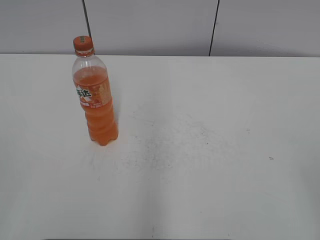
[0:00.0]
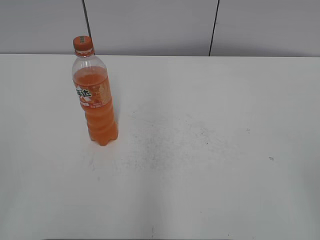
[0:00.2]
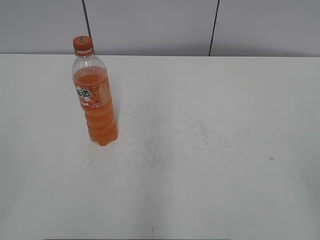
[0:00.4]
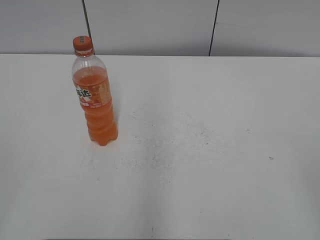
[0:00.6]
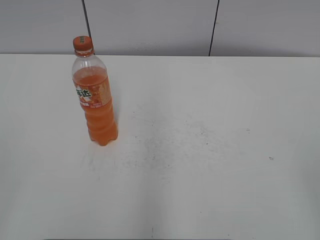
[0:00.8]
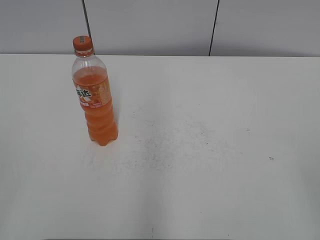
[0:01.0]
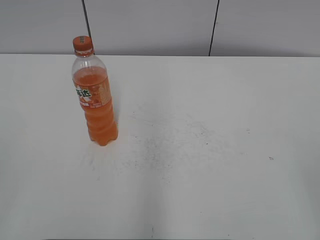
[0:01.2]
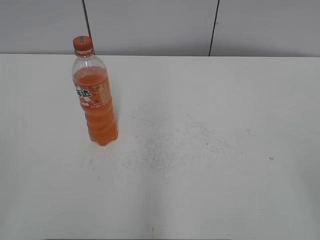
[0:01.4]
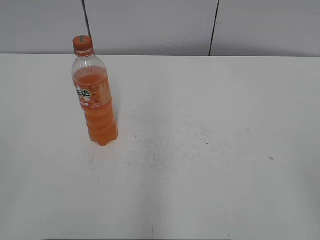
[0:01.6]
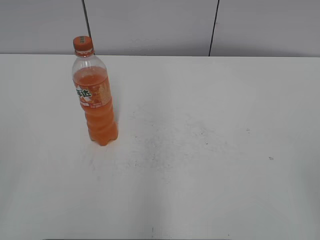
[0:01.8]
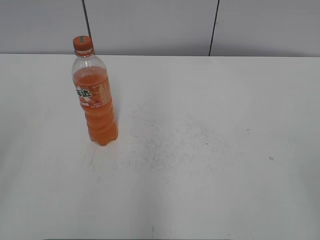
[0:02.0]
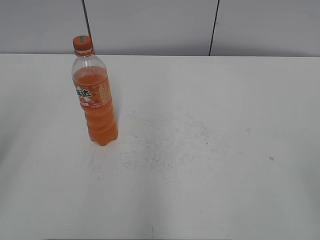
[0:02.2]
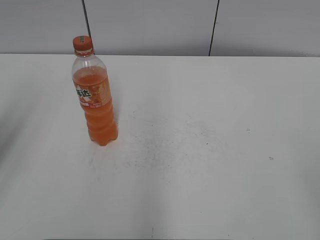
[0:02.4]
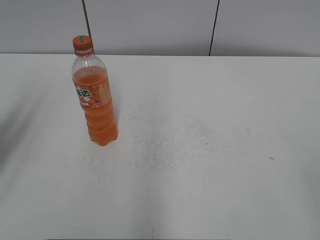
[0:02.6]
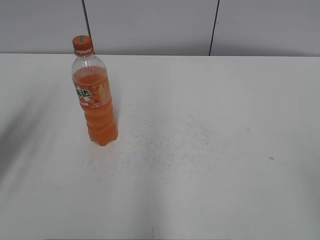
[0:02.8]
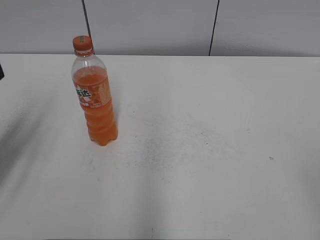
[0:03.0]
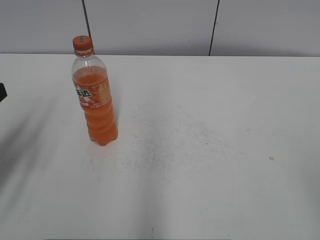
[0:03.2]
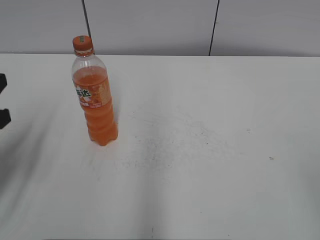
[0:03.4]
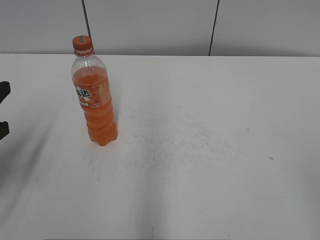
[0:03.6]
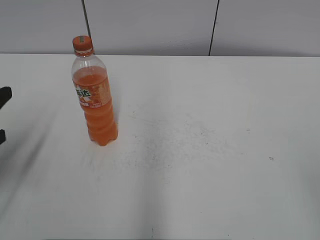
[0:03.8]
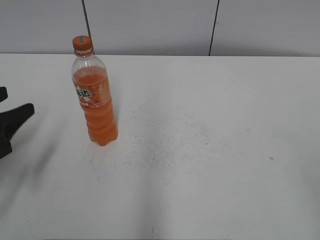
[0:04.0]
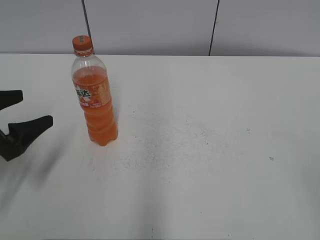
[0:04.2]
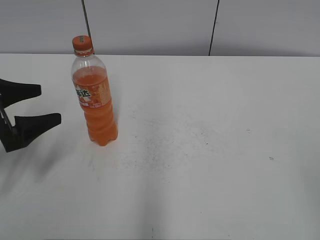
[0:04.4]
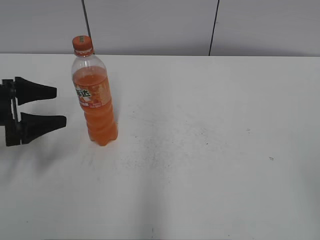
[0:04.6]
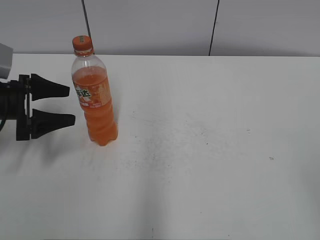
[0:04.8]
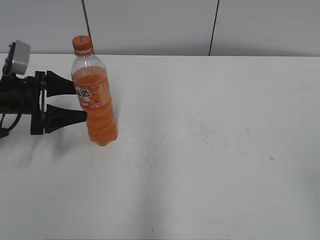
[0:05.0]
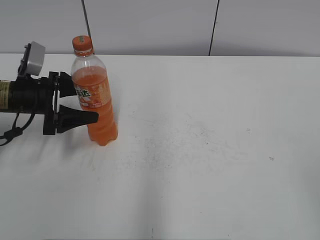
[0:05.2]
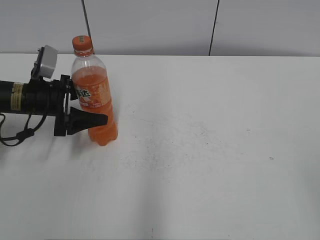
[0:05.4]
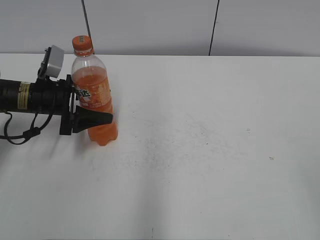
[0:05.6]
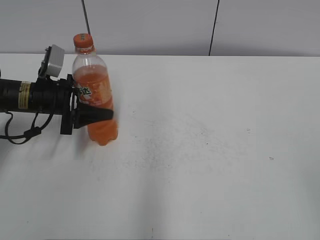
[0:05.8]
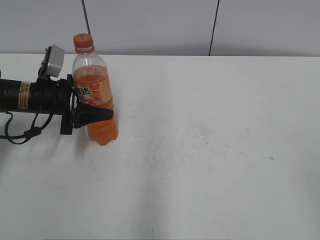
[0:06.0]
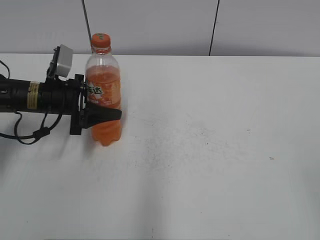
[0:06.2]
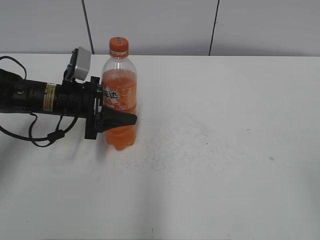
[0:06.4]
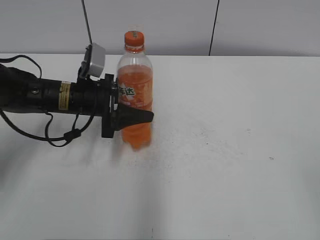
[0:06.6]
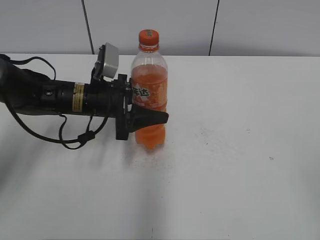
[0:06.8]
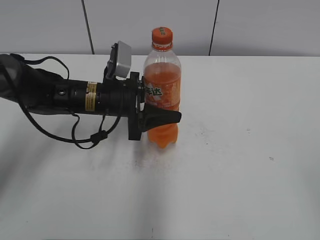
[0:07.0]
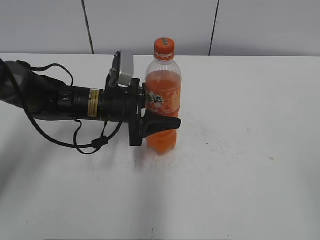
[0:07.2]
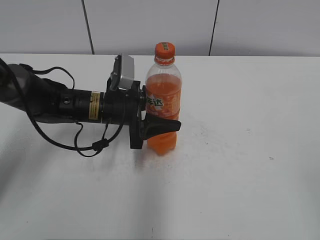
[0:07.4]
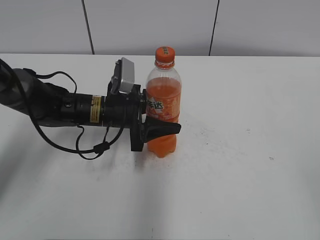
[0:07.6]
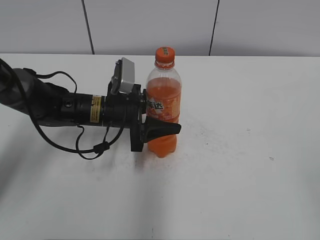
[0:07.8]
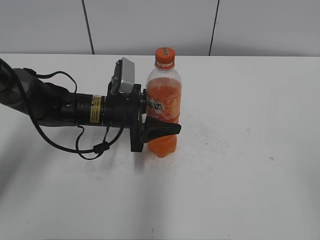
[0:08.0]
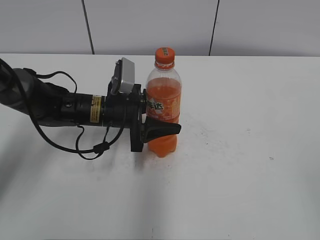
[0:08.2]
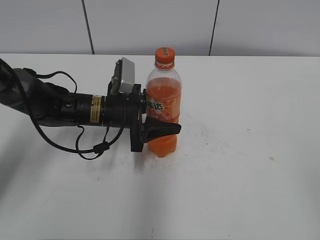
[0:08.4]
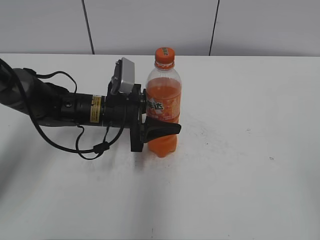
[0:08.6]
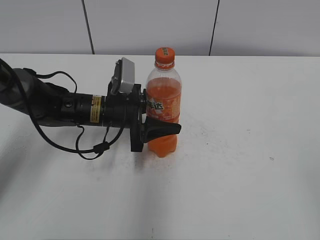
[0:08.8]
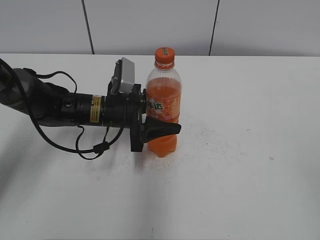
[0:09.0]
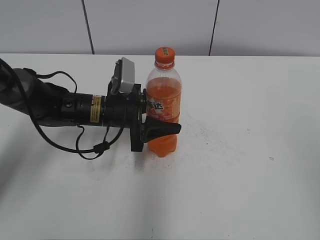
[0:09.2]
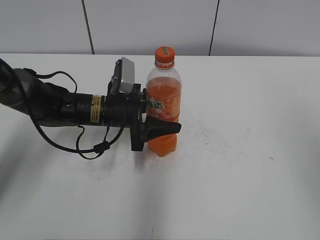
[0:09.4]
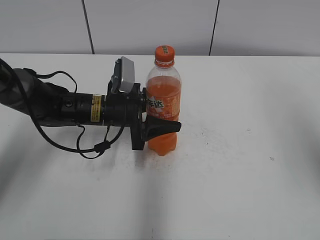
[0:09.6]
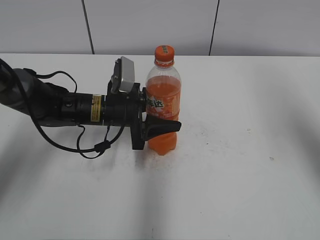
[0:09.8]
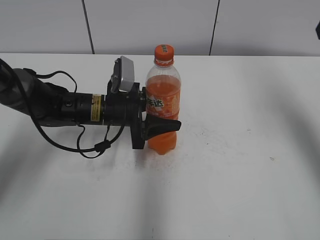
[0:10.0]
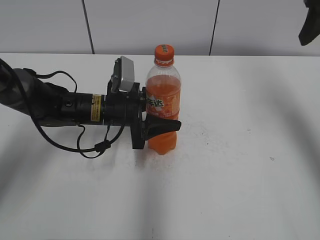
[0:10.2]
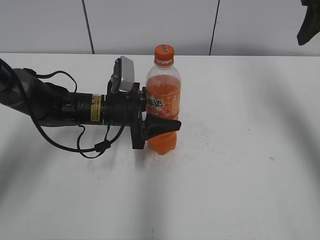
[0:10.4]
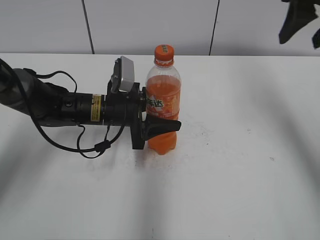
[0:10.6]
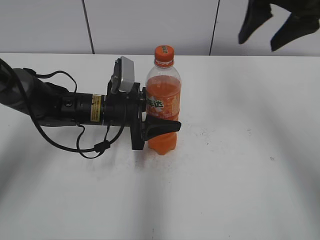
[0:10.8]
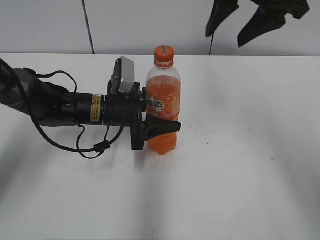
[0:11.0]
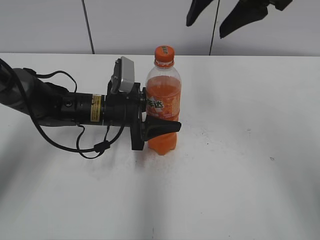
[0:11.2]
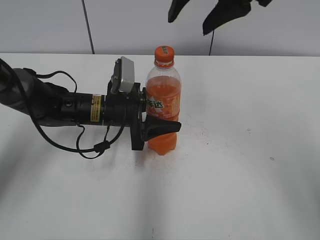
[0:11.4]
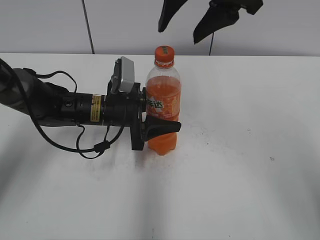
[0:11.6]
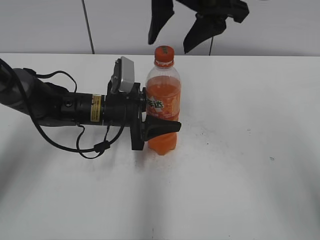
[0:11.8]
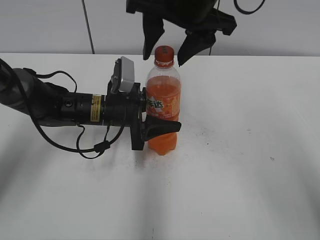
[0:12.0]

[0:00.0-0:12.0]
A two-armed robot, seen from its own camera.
Step, 0:00.0 to 0:05.8: Grab the Mirinda with the left hand.
Step, 0:06.0 to 0:08.2: Move the Mirinda from left to right.
0:01.6 to 0:03.0: The left gripper shifts roughly 25 cm forward.
0:03.0 to 0:04.4: The left gripper goes approximately 10 cm downward, and opens up.
0:04.4 to 0:06.0: The left gripper goes approximately 15 cm forward and to the right, and closes up.
0:06.0 to 0:07.6: The left gripper heads to the right, covering roughly 15 cm.
0:07.6 to 0:09.0: Both grippers stay about where they are.
0:09.0 to 0:10.4: The right gripper shifts about 35 cm forward.
0:10.4 to 0:12.0: The right gripper goes about 20 cm to the left.

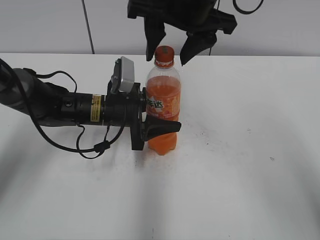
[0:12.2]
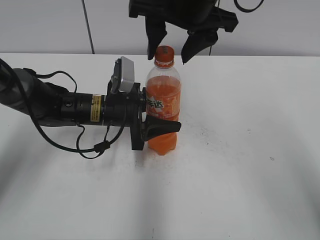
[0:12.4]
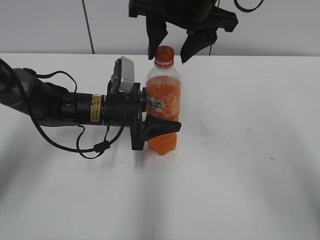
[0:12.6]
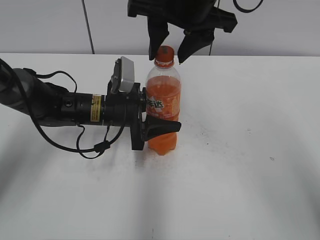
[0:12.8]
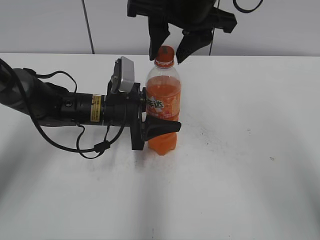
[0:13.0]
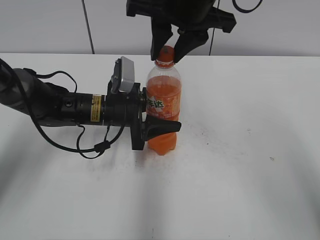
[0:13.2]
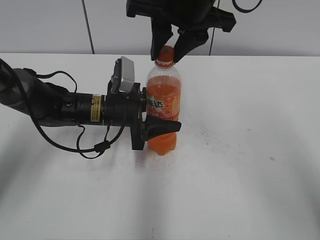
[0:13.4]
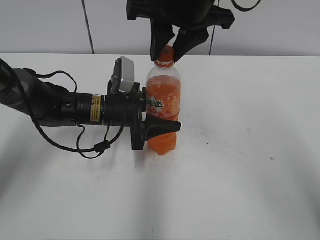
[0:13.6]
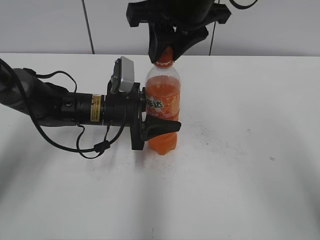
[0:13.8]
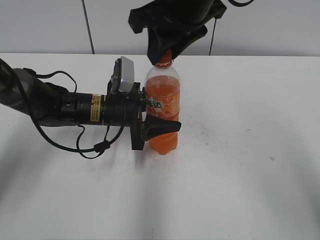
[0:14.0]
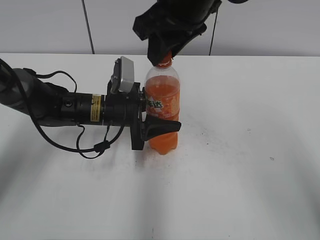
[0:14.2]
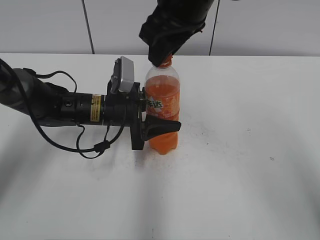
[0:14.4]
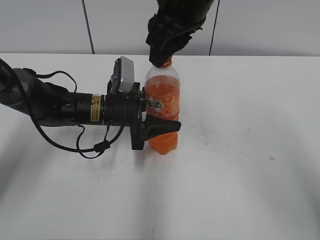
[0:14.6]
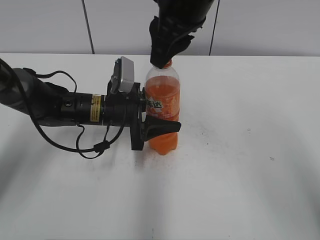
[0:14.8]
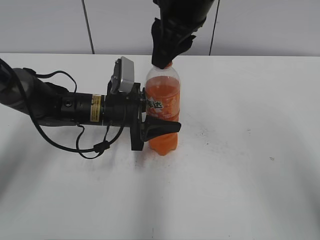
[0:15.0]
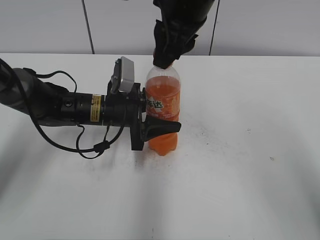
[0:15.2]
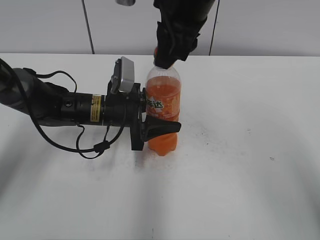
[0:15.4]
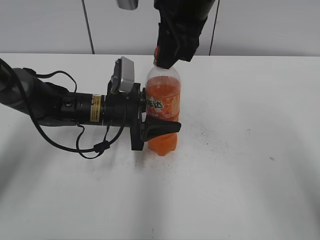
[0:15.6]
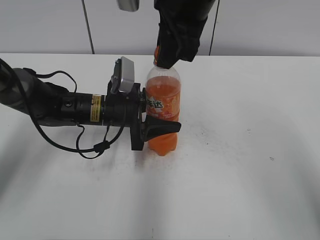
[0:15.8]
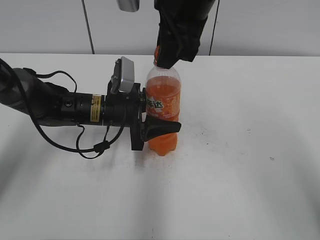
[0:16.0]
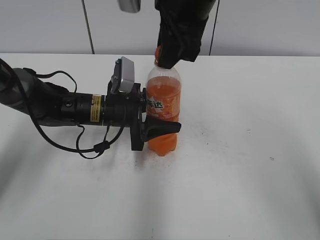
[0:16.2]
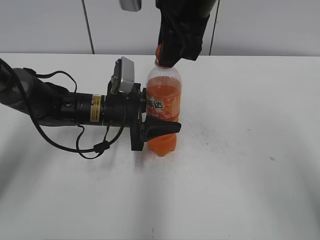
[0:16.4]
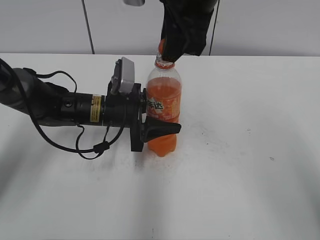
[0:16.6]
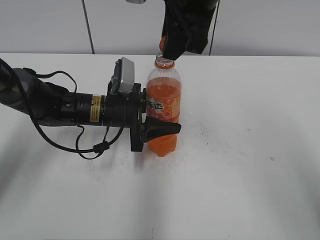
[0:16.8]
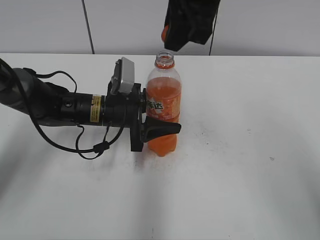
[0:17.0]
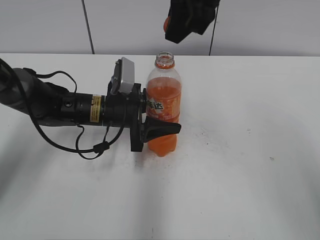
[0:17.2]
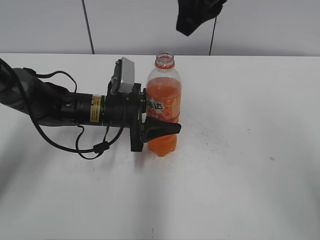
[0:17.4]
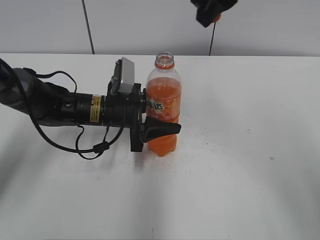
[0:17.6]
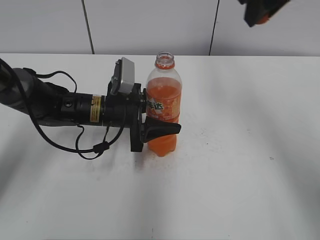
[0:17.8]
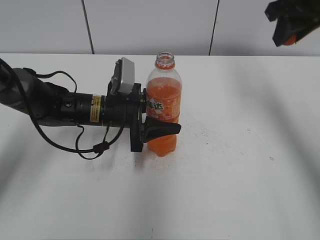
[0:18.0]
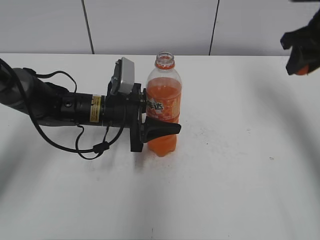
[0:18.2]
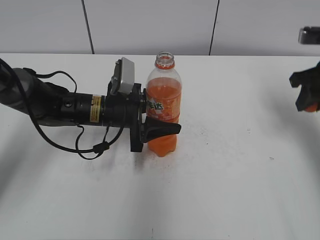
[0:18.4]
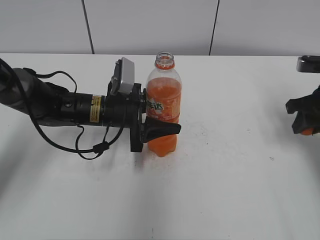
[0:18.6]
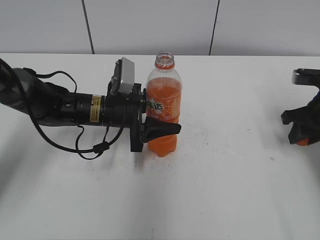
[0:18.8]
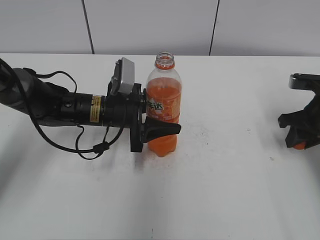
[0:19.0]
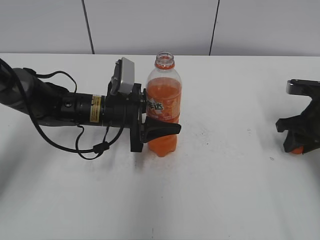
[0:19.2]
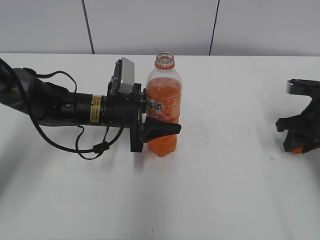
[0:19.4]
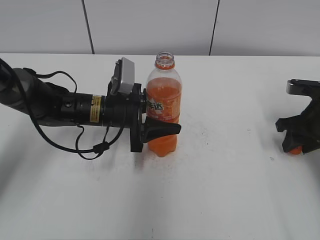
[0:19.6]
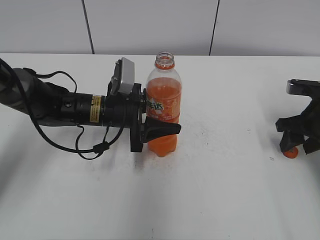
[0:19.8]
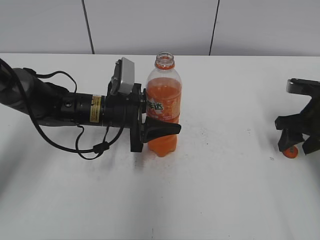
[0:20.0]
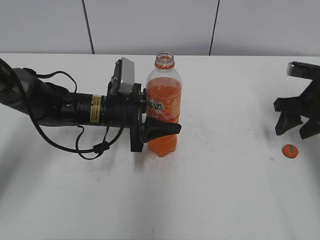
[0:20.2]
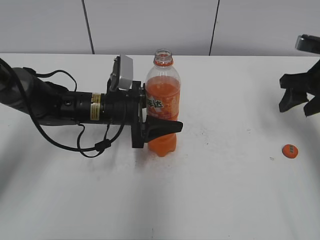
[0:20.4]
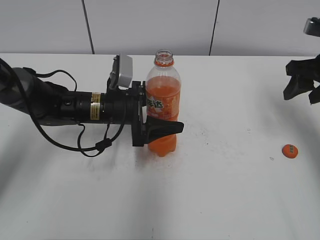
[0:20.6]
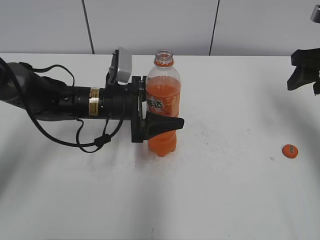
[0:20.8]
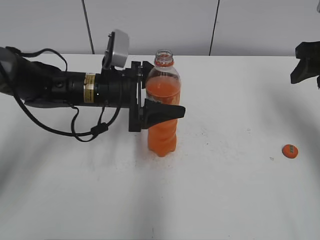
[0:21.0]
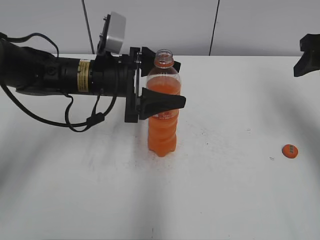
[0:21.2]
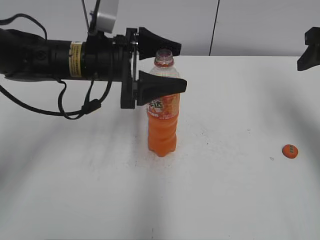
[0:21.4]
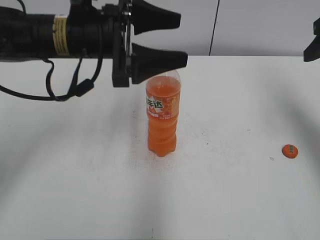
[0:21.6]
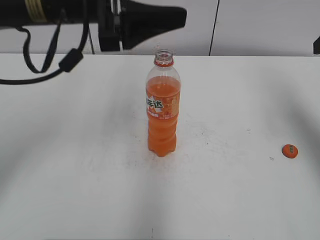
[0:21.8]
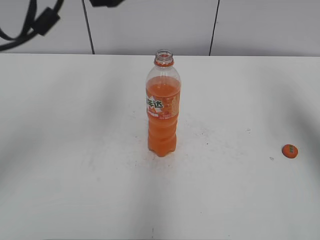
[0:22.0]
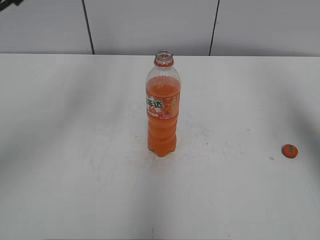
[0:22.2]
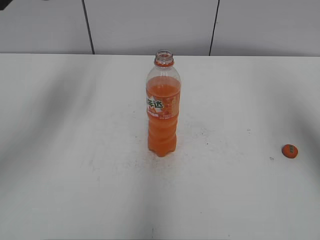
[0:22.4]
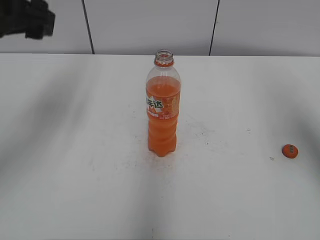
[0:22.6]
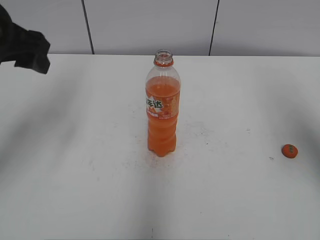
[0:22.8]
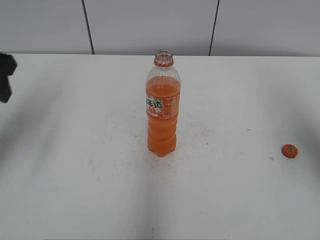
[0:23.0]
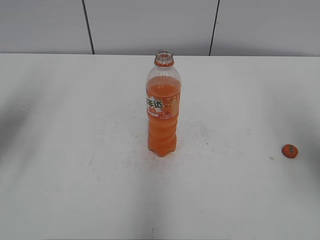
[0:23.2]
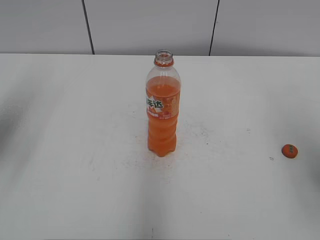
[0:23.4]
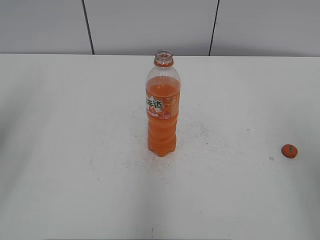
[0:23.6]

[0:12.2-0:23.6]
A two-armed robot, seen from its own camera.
Step, 0:12.2 to 0:16.4: Twist the bottle cap with the right hand.
Step, 0:16.6 to 0:19.6: Place the bottle cap on the right.
0:12.2 to 0:13.6: The right gripper closes its fingers.
0:16.4 to 0:17.8: The right gripper is displaced to the right by about 10 cm.
0:17.8 to 0:19.4: The right gripper travels downward and to the right by about 30 cm.
0:19.4 to 0:20.8: The right gripper goes some 10 cm upward, and opens its fingers, while the left gripper opens.
0:20.8 to 0:22.2: The left gripper is displaced upward by roughly 25 cm, while the right gripper travels upward and backward by approximately 15 cm.
0:22.2 to 0:23.6: The right gripper goes roughly 15 cm backward, while the left gripper travels to the left and backward by roughly 15 cm, and closes its fingers.
